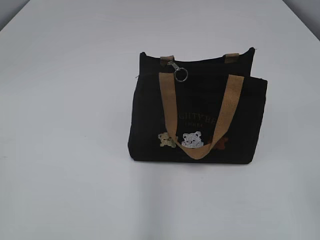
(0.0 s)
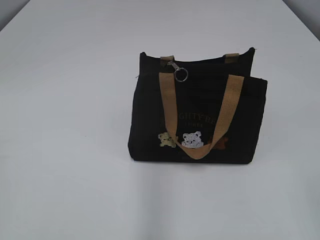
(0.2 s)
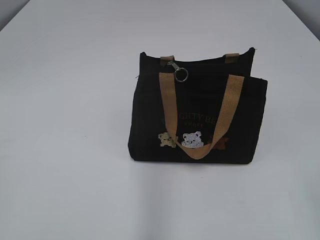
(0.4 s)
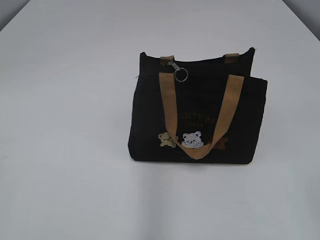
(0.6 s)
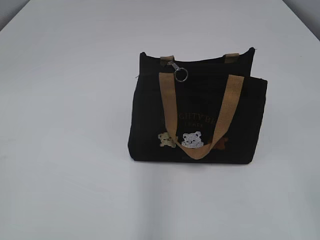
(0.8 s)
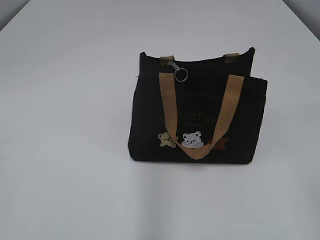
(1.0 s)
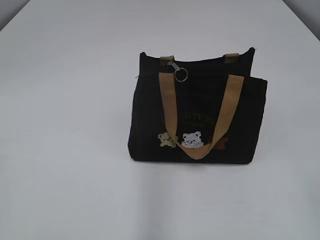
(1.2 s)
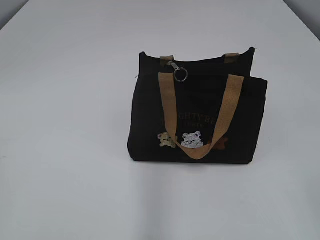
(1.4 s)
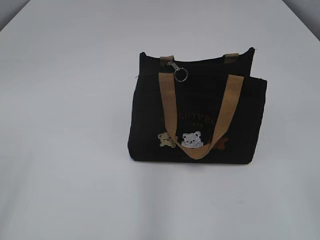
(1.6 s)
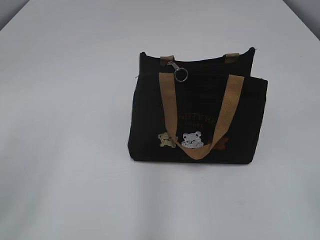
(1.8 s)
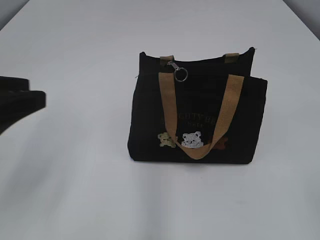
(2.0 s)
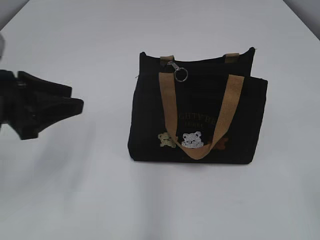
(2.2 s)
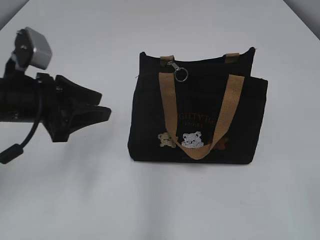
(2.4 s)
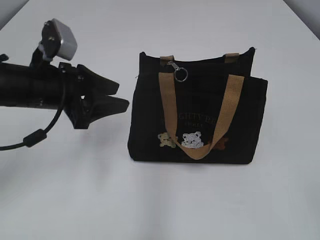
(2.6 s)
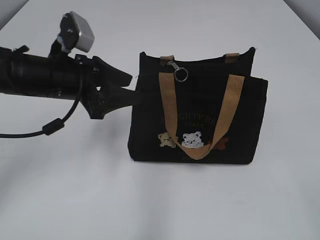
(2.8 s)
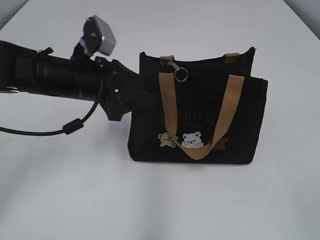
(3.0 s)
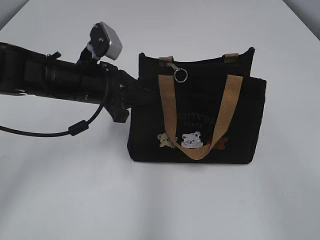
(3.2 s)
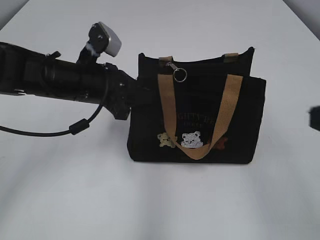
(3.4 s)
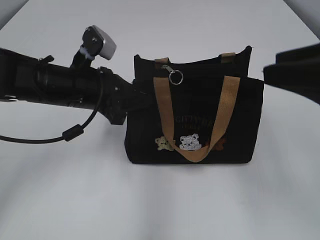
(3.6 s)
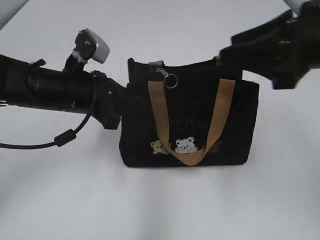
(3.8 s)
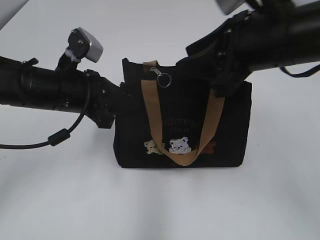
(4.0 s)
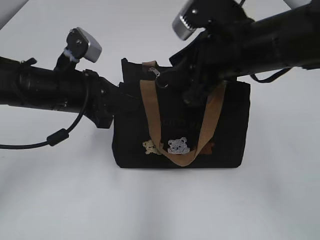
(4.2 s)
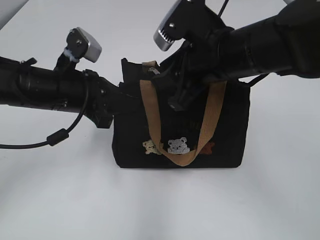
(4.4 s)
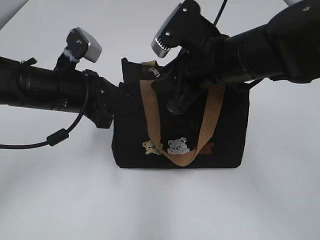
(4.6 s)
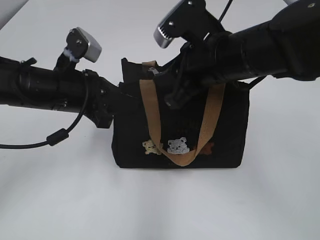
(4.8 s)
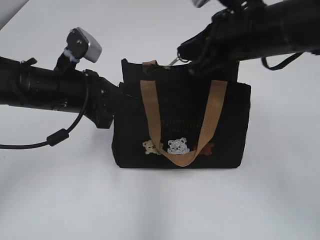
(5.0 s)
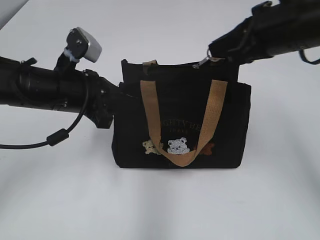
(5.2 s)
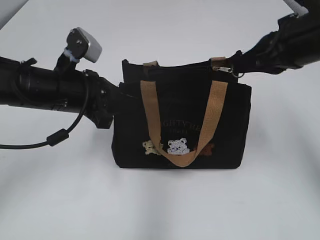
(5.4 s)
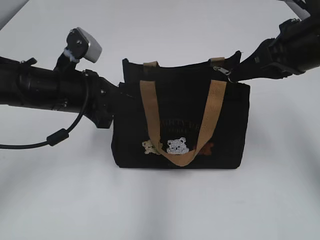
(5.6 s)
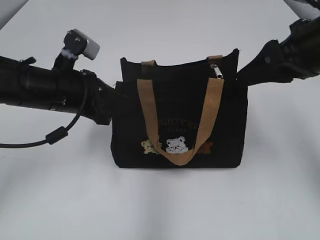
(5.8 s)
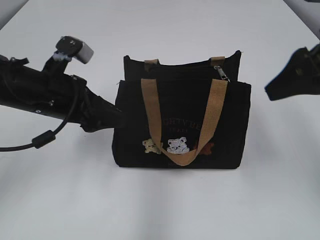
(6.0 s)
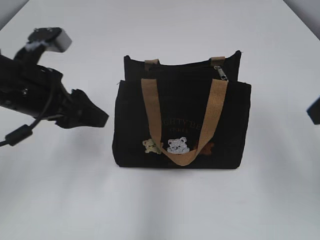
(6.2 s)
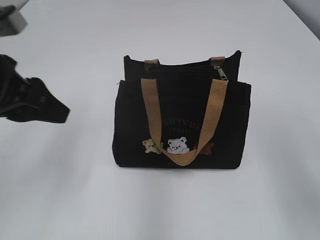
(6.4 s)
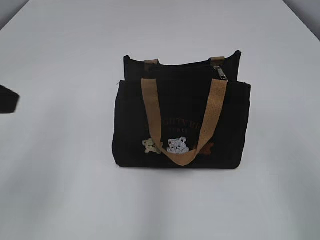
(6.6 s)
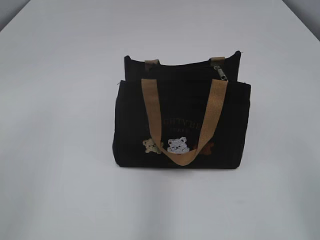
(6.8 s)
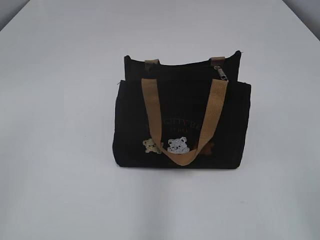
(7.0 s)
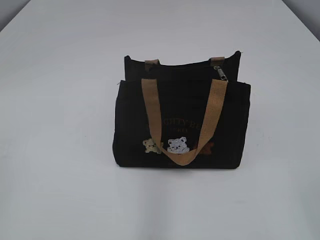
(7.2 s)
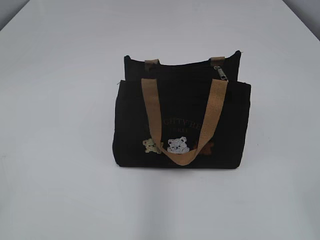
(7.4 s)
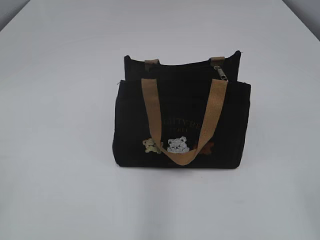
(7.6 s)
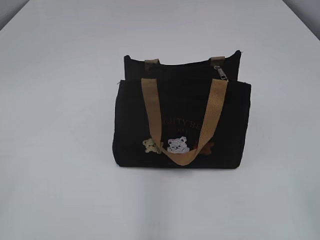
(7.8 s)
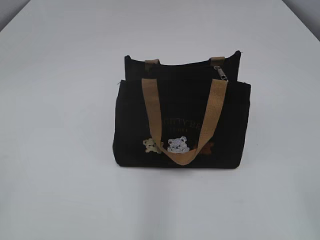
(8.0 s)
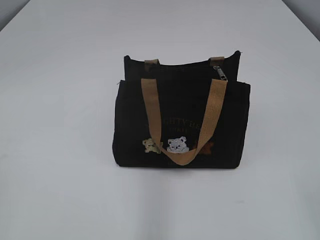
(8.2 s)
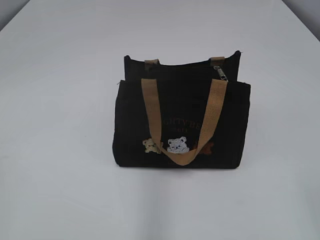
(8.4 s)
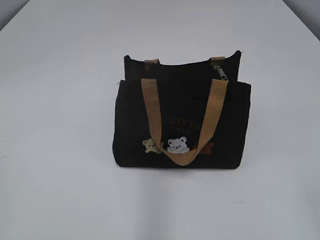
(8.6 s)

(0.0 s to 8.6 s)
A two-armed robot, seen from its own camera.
Step, 0.0 s - 5.4 s: Pull open the zipper with your right hand.
Step, 5.8 s - 6.0 s: Hold the bag with your left hand.
1.4 s - 2.8 s: The left gripper shifts roughly 35 cm forward and to the right, and opens its fingers.
2.8 s - 4.4 s: The left gripper closes, while the right gripper goes about 35 cm forward and to the left.
4.4 s - 5.8 s: The right gripper heads to the right, covering roughly 10 cm, and closes, then reopens.
5.8 s - 7.2 s: The left gripper travels backward, to the left and upward by roughly 35 cm, and opens and closes again, while the right gripper moves backward, about 25 cm.

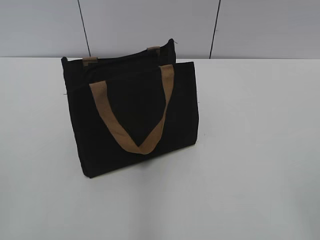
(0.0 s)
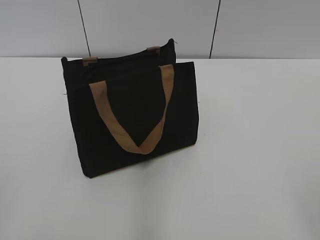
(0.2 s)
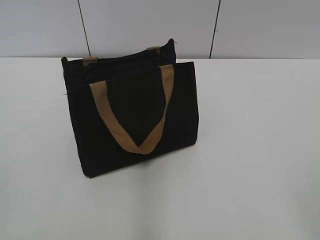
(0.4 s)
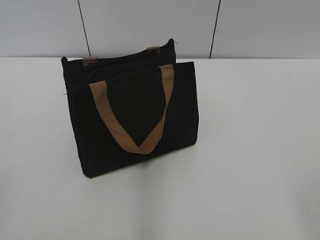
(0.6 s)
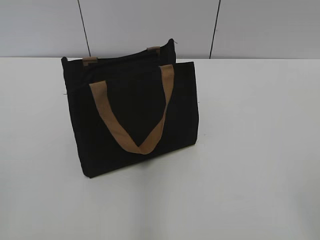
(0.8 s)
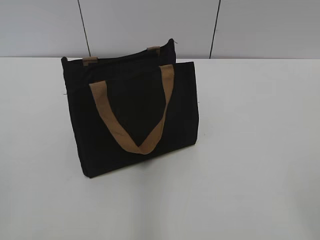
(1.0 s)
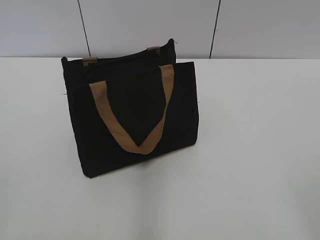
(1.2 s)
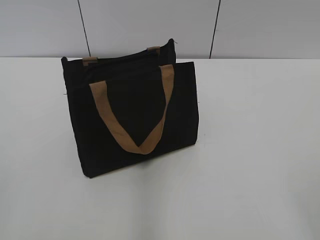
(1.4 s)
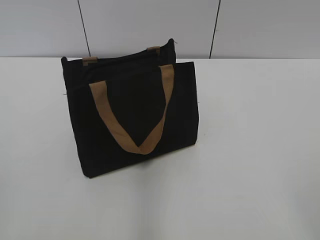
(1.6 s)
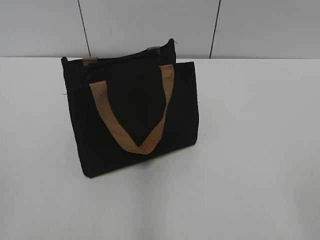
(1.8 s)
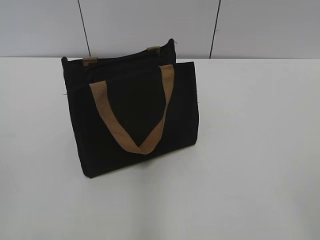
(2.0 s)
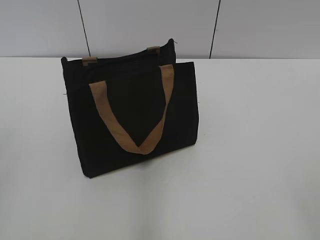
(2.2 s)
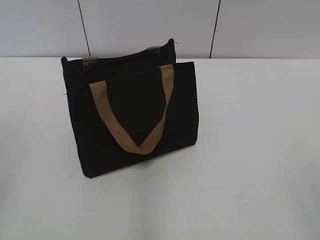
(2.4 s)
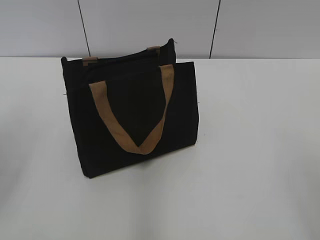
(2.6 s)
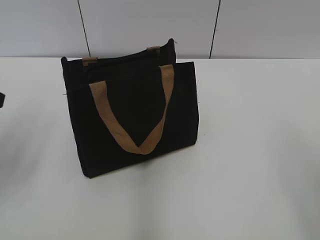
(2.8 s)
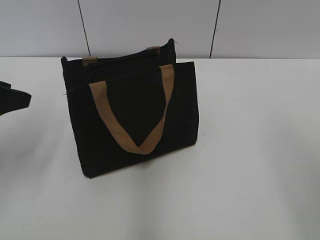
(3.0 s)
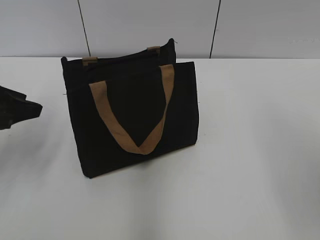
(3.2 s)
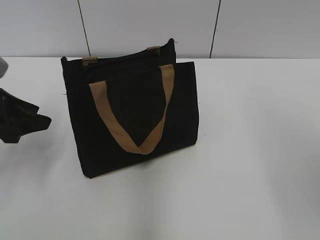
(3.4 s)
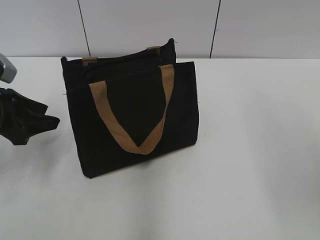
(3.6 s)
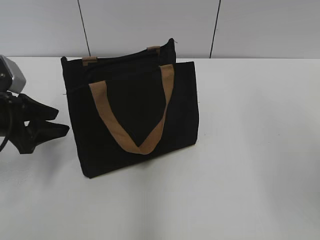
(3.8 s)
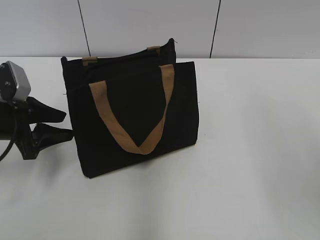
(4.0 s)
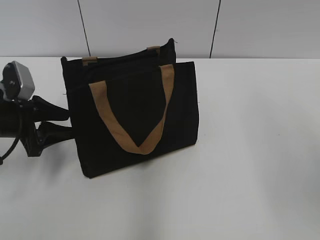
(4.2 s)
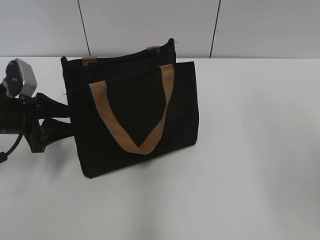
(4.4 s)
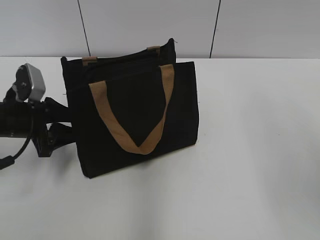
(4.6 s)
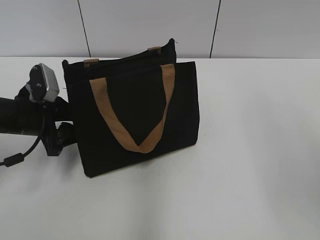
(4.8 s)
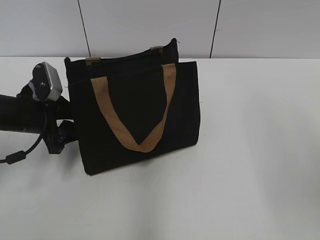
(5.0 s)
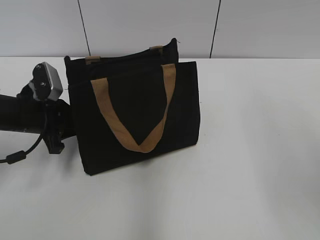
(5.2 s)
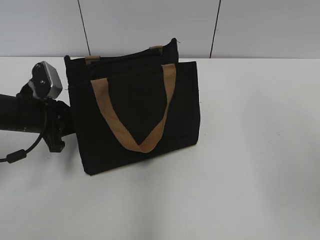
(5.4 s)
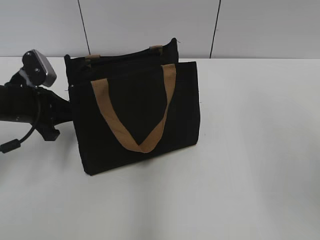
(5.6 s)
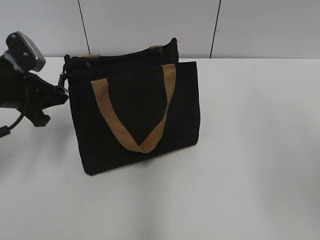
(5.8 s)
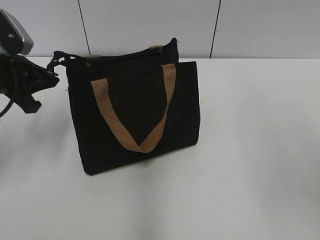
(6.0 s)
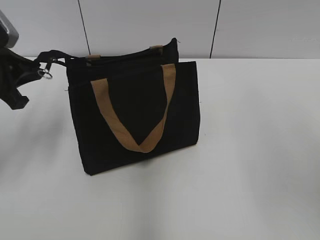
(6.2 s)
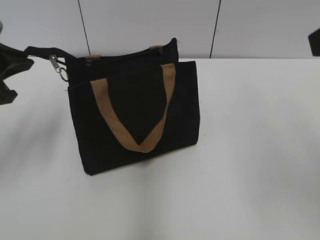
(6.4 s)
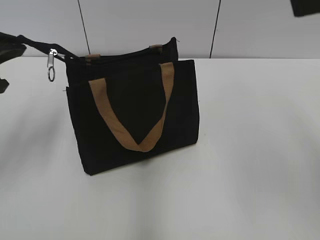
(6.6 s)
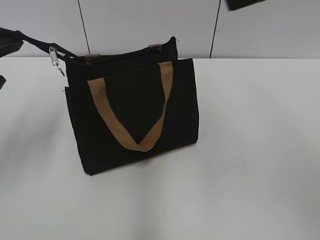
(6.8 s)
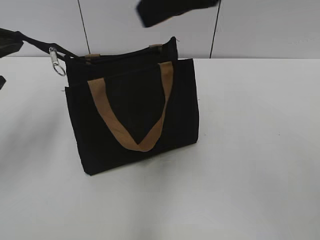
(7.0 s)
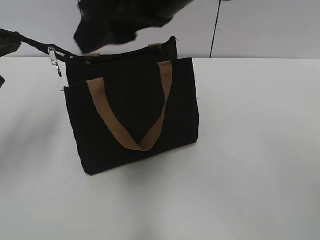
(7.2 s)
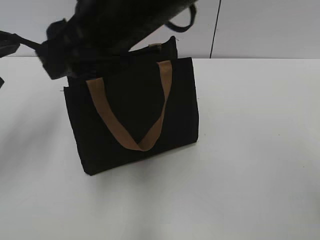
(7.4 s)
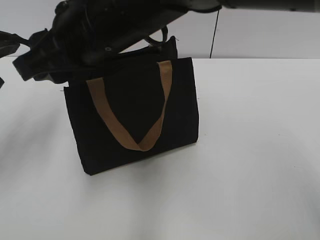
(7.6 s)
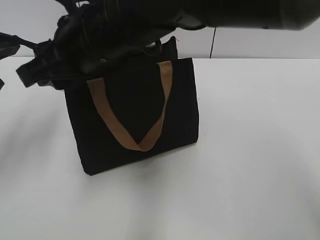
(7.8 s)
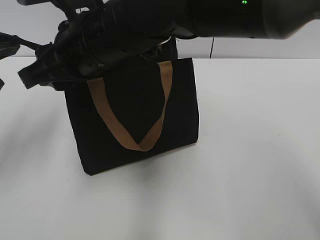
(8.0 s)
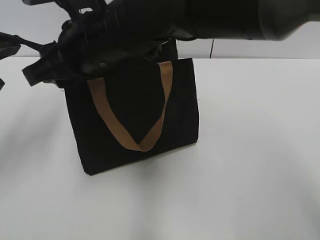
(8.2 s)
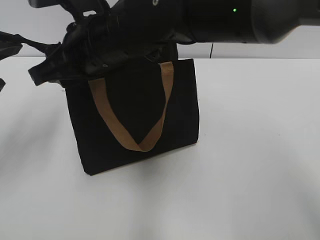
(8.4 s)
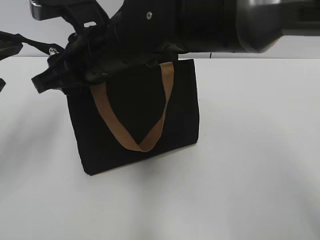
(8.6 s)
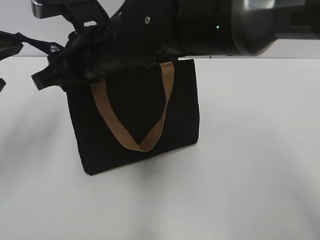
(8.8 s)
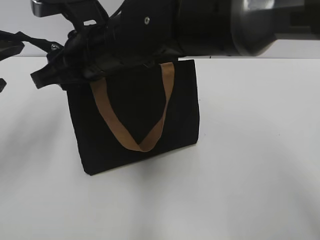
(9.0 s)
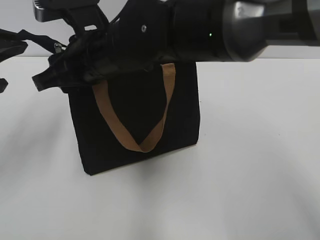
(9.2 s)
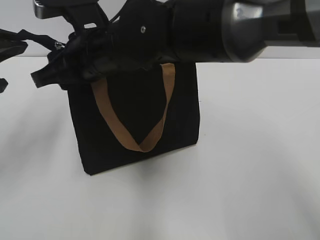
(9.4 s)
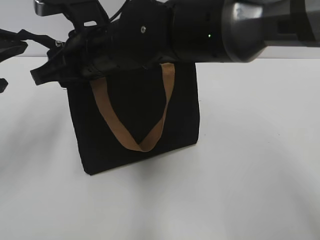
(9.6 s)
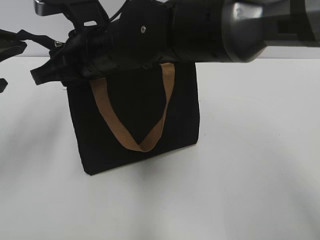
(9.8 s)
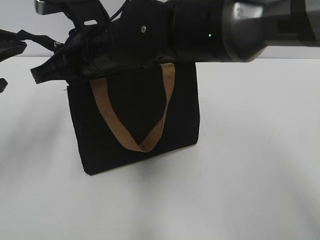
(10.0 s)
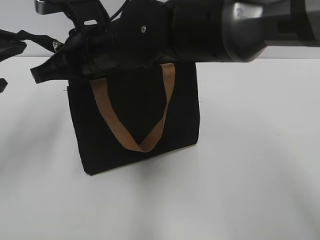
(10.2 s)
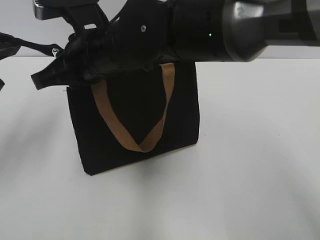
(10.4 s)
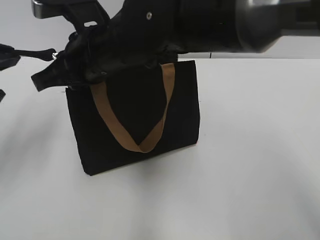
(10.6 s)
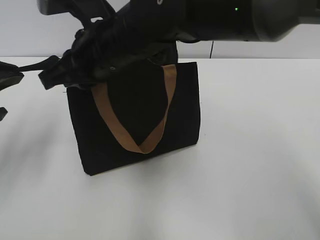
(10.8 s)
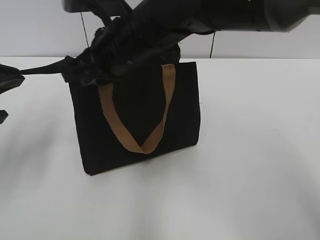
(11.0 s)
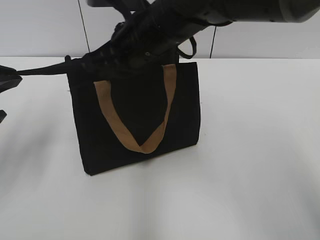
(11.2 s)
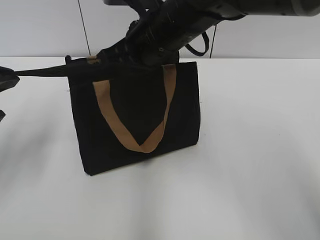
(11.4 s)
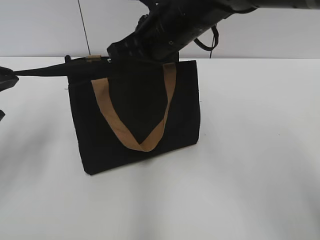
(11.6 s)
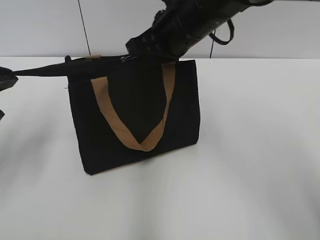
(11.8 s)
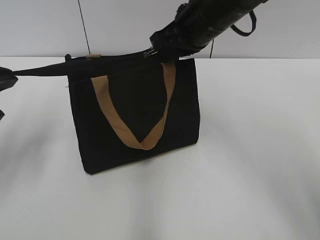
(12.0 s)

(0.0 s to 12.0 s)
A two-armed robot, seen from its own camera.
1.6 s - 3.0 s: The left gripper goes some 25 cm forward.
3.0 s - 4.4 s: The left gripper travels downward and forward by approximately 15 cm.
4.4 s - 6.0 s: The left gripper goes approximately 5 cm upward, and closes up.
6.0 s - 7.6 s: The left gripper moves upward and backward, about 10 cm. The right gripper goes approximately 30 cm to the left.
7.6 s - 9.0 s: The right gripper goes roughly 5 cm downward.
9.0 s - 10.4 s: The right gripper closes its fingers.
10.4 s - 12.0 s: The right gripper shifts about 15 cm to the right and forward.

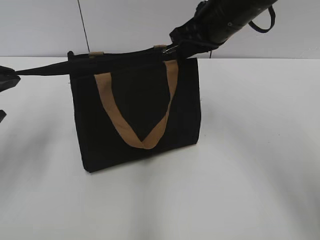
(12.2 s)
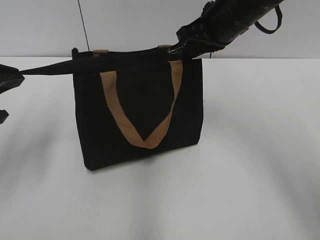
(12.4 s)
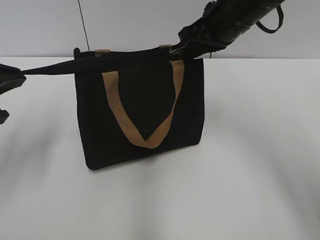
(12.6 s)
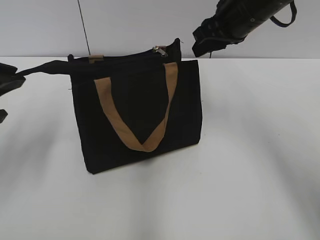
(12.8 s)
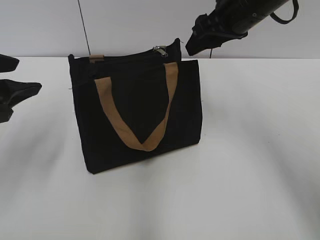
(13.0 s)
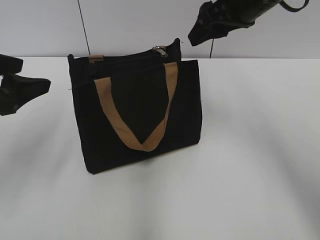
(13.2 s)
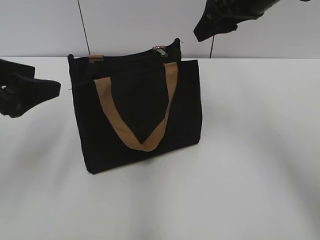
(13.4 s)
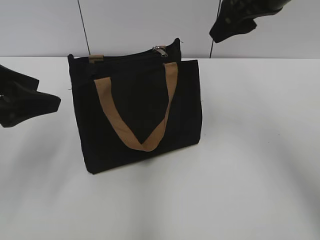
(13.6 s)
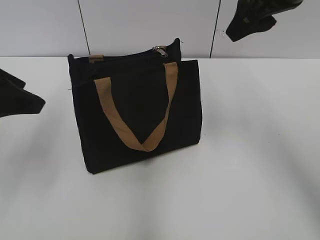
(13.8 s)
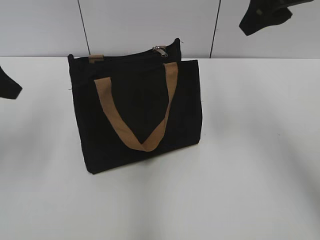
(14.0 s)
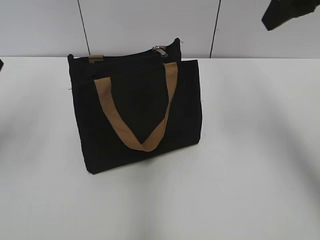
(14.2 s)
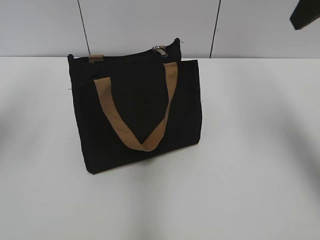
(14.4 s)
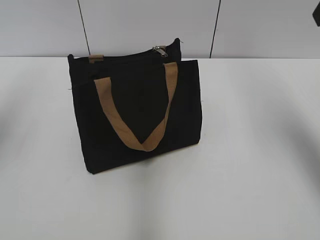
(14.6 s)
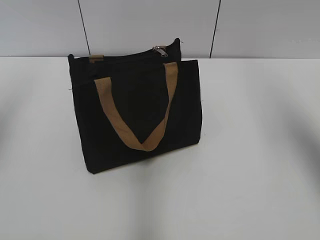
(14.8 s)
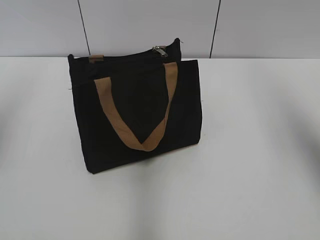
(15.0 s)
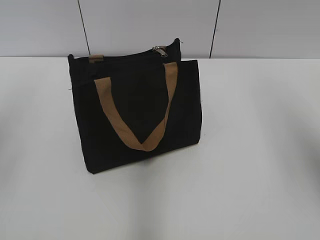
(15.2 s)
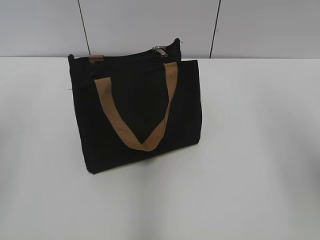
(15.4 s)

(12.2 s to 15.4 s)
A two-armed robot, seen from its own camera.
12.2 s - 13.8 s: The right gripper is displaced upward and to the right by about 10 cm, and opens up, while the left gripper opens up.
13.8 s - 15.4 s: The right gripper goes roughly 20 cm backward and to the right. The left gripper goes about 10 cm upward and backward.
